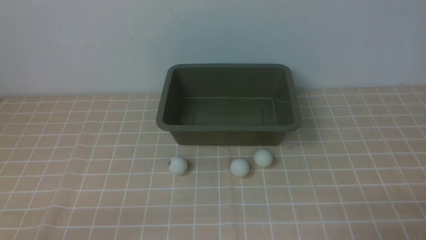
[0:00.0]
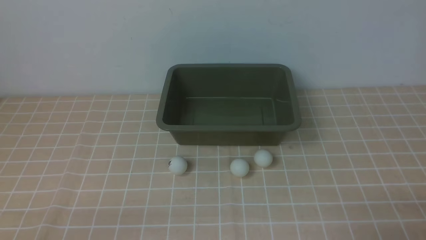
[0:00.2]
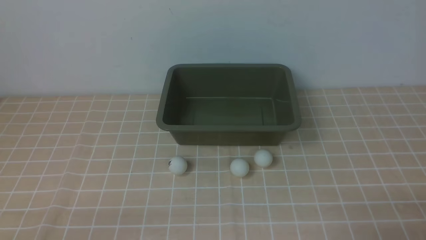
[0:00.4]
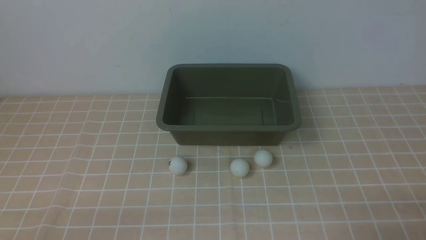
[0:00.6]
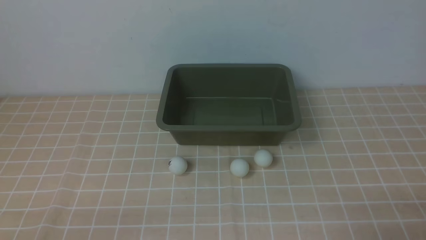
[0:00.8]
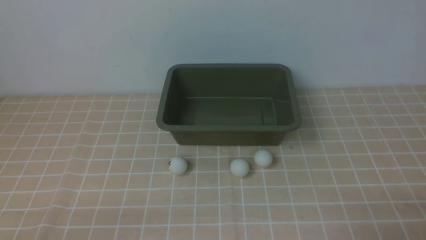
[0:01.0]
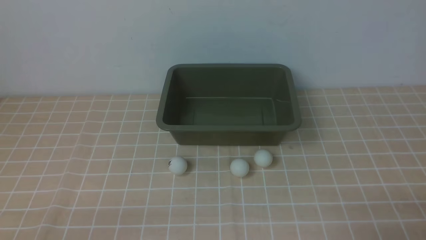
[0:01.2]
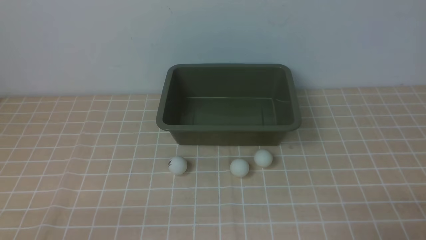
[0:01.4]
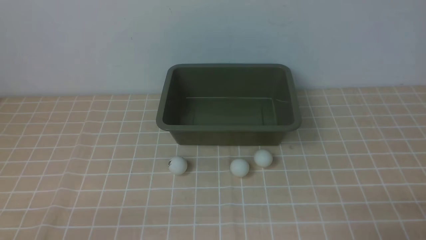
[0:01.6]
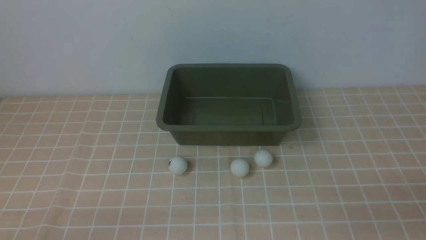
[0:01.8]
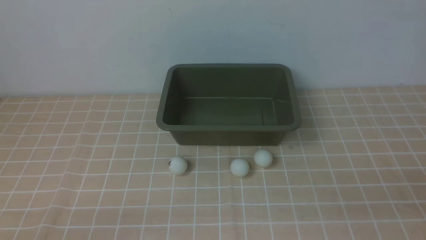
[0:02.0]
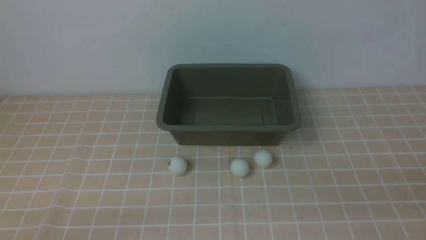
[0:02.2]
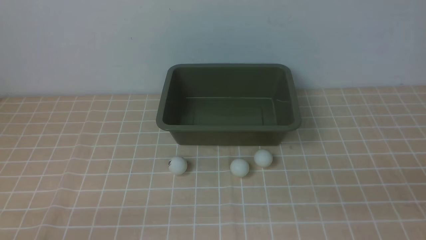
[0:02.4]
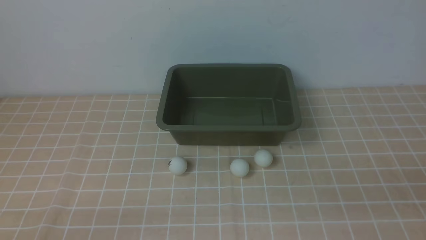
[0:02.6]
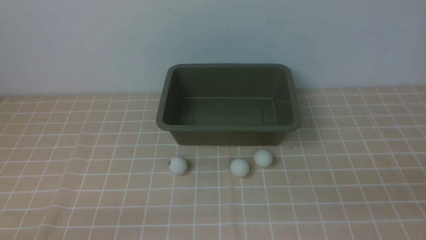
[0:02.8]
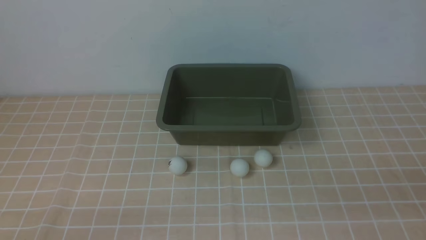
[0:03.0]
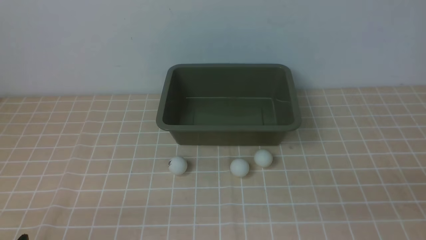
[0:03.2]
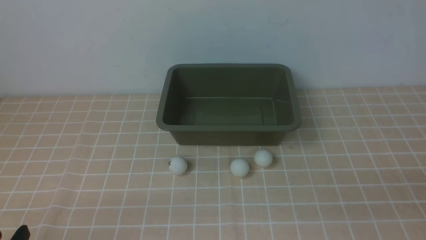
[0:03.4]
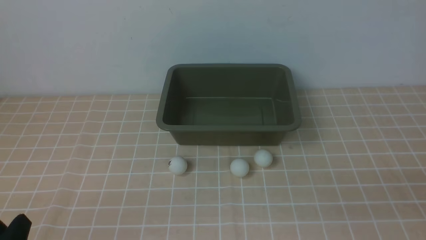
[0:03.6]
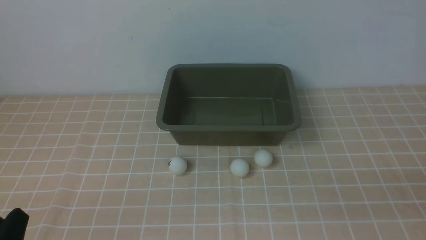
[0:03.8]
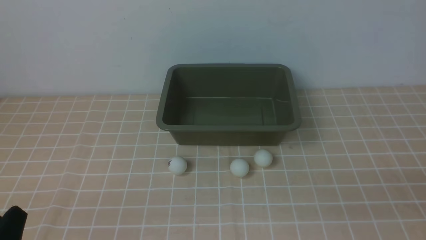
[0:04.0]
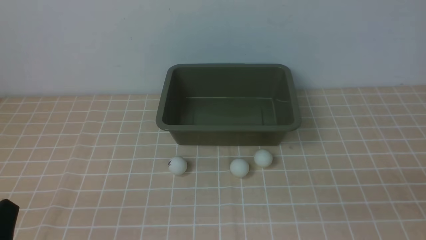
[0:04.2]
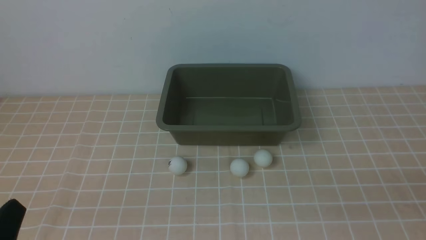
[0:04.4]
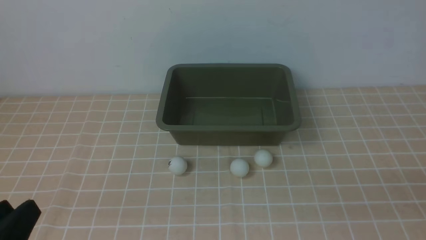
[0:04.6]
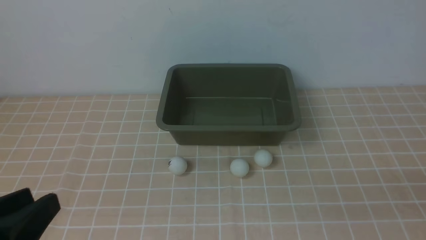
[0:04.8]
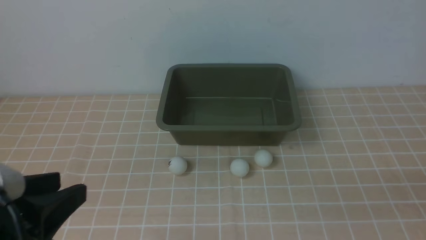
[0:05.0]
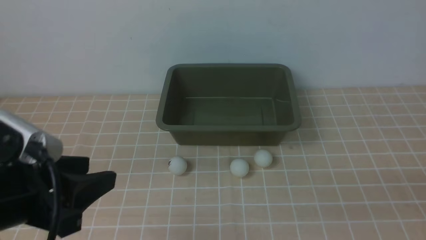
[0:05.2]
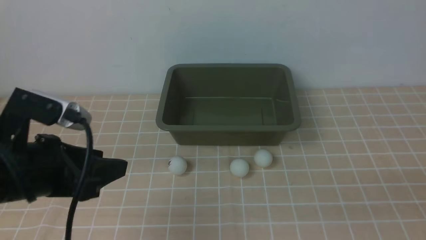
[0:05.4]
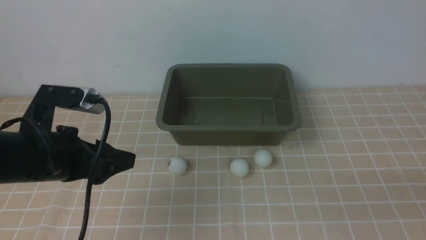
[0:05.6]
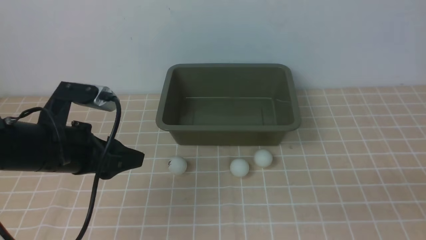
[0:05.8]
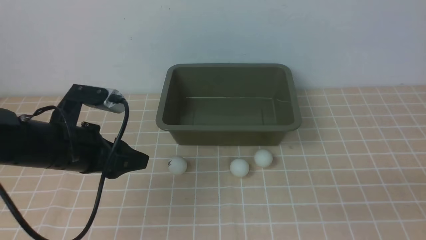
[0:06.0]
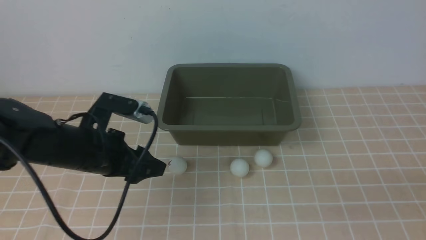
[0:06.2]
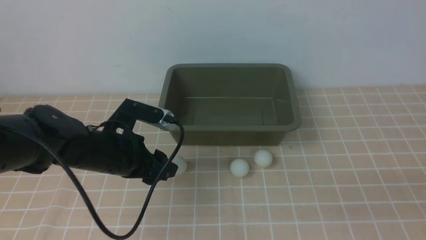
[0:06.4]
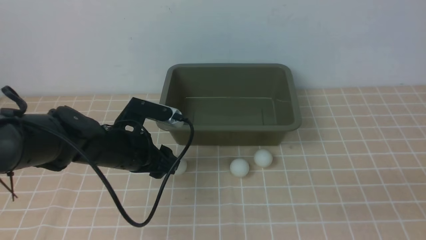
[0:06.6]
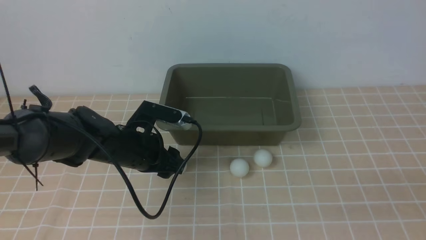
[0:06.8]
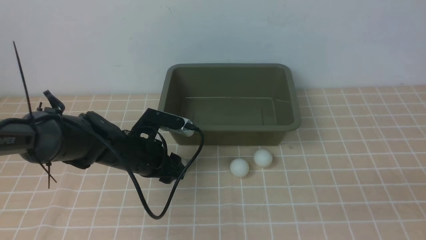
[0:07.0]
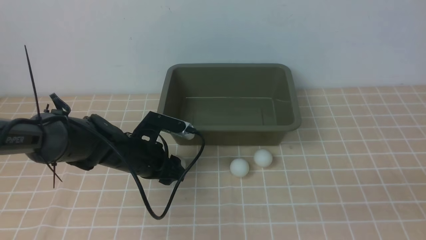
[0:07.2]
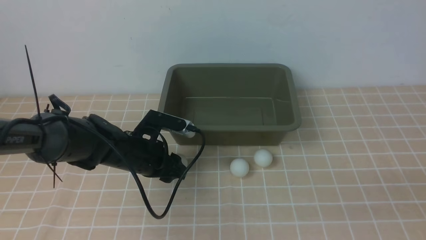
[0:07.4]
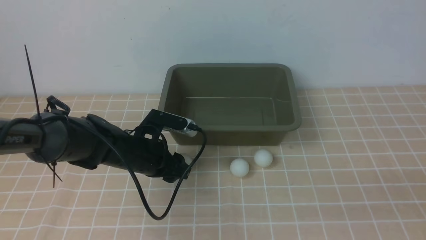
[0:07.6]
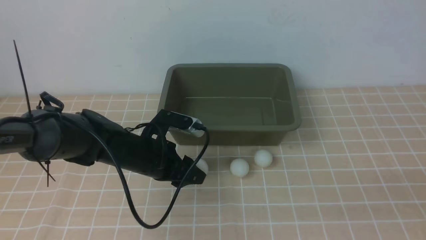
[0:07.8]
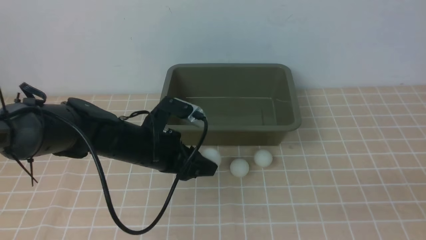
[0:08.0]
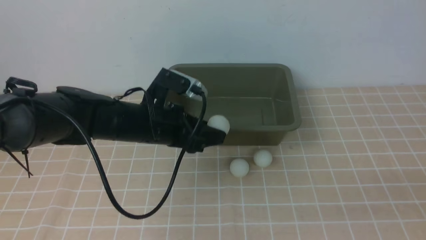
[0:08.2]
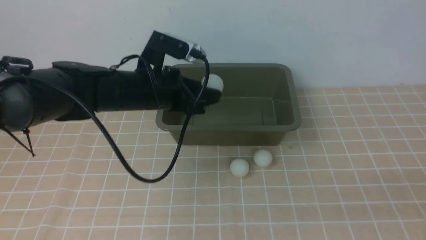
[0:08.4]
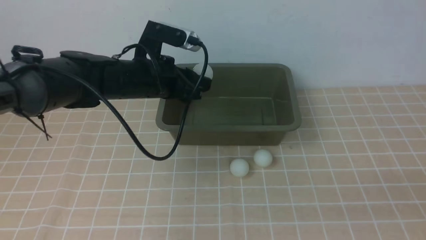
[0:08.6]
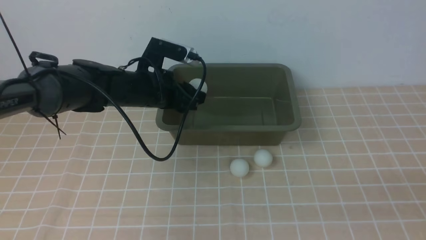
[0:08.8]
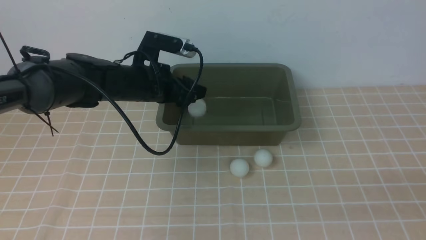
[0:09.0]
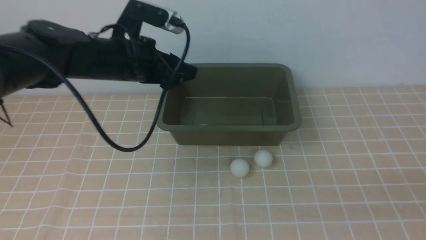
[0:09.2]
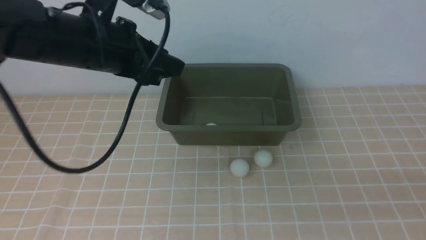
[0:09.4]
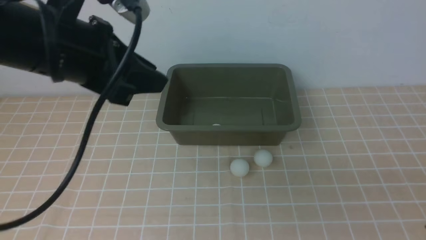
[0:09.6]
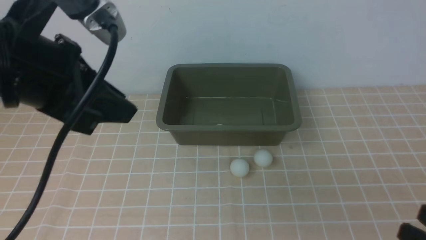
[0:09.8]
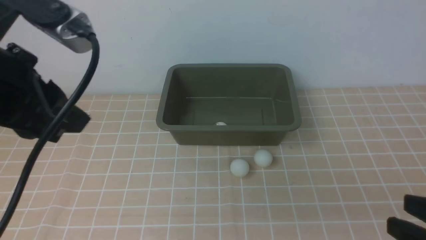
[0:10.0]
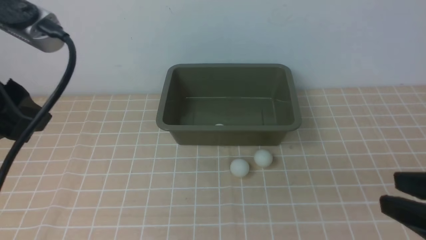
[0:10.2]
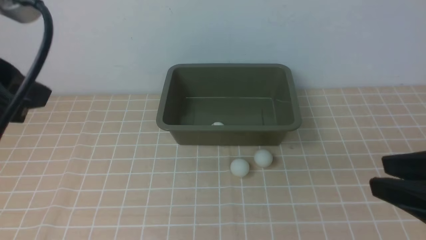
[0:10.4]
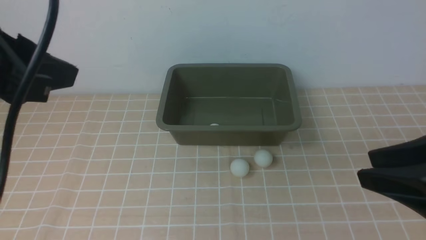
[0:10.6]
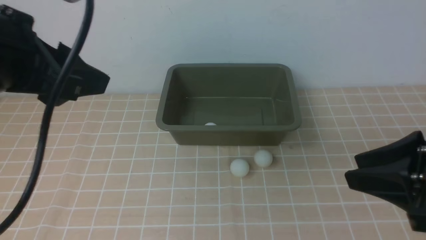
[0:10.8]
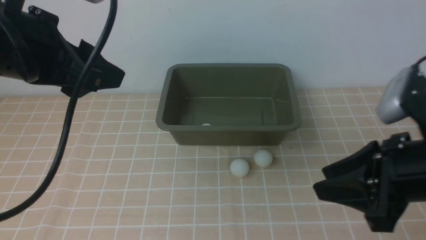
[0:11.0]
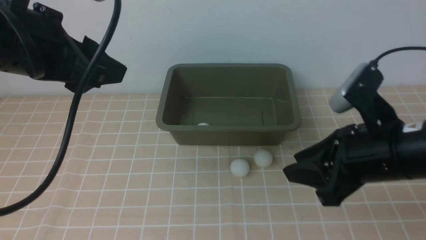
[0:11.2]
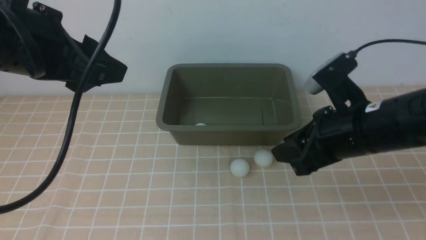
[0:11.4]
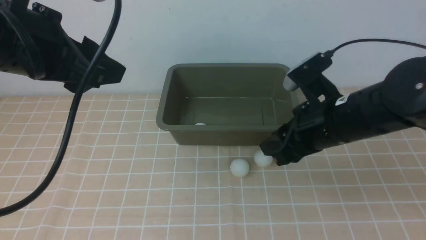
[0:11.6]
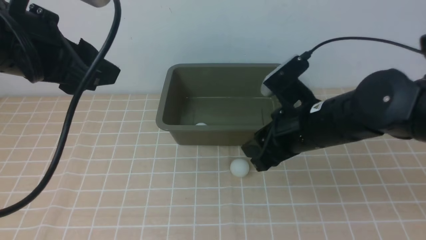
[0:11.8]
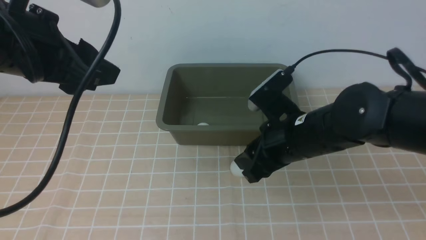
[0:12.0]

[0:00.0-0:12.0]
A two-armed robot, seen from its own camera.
Step, 0:00.0 to 0:07.6: use the left arm to clamp the table tennis ball closest to it.
Step, 0:07.8 to 0:09.2: use the left arm to put the table tennis ball into the box.
0:03.0 to 0:04.4: The left gripper heads upward, covering some 5 cm.
0:04.4 to 0:06.0: The left gripper shifts about 20 cm forward, and opens up.
0:06.0 to 0:07.6: The left gripper heads downward, to the right and forward, covering about 15 cm, and closes its fingers.
0:07.6 to 0:09.0: The left gripper moves upward and forward, approximately 15 cm, and opens.
0:09.0 to 0:10.4: The right gripper goes about 10 cm forward and upward; the left gripper shifts approximately 30 cm backward and upward, and closes.
0:10.4 to 0:12.0: The left gripper moves forward, roughly 5 cm, and opens up; the right gripper heads forward, to the left and downward, covering some 25 cm.

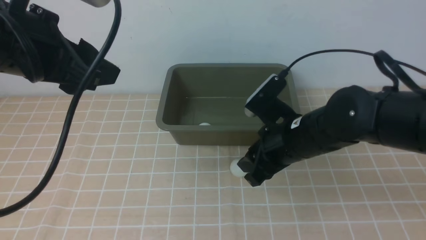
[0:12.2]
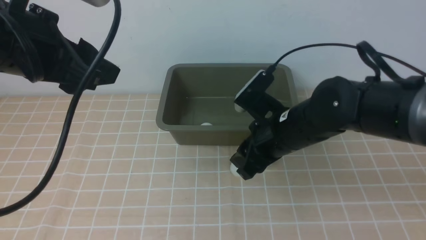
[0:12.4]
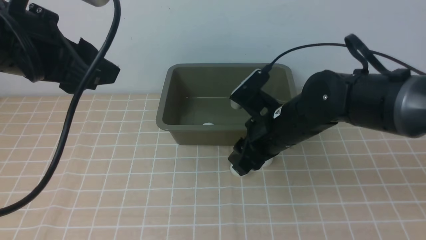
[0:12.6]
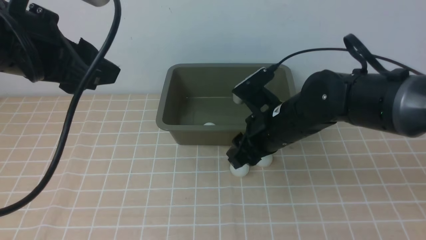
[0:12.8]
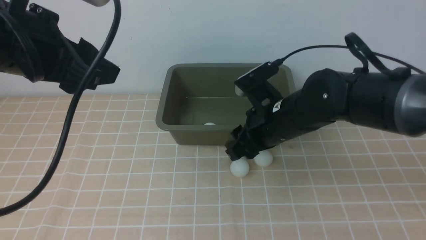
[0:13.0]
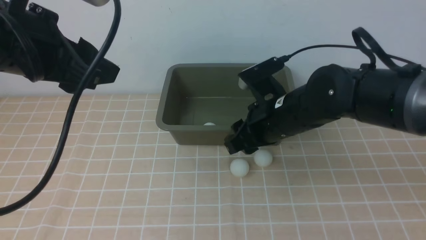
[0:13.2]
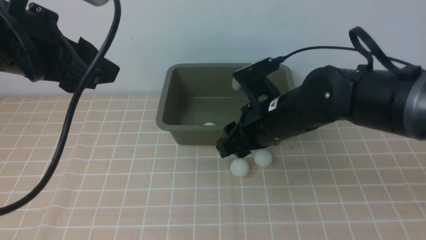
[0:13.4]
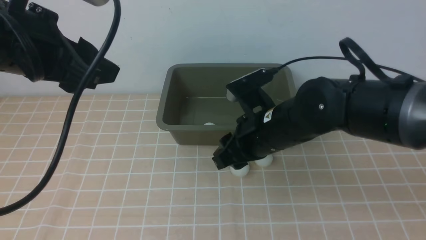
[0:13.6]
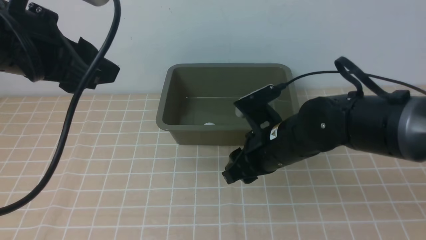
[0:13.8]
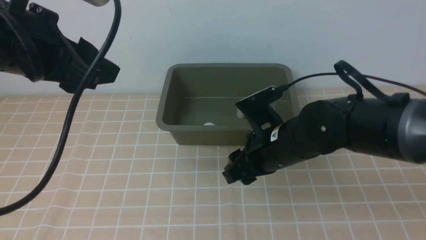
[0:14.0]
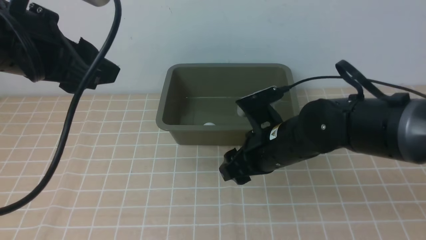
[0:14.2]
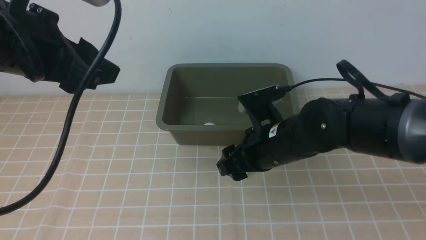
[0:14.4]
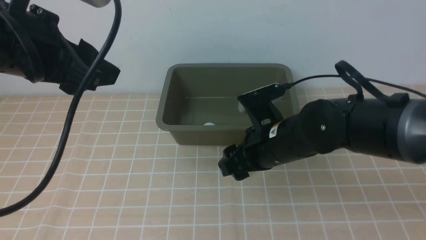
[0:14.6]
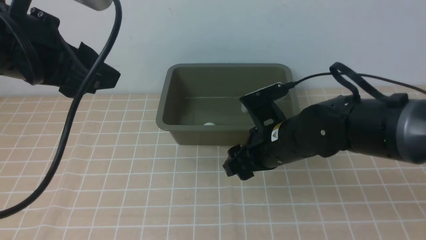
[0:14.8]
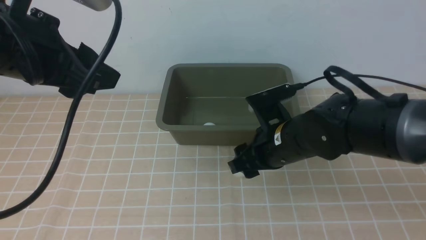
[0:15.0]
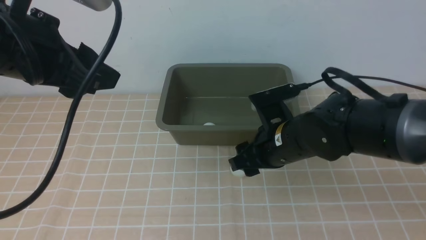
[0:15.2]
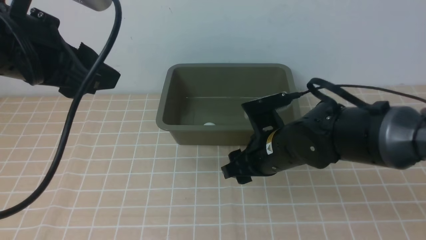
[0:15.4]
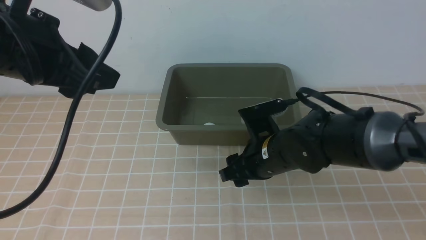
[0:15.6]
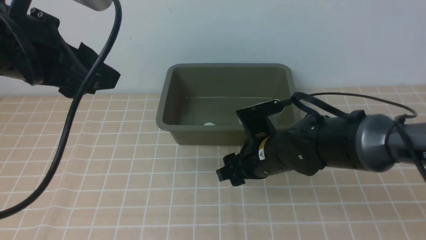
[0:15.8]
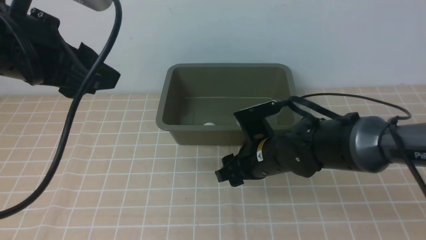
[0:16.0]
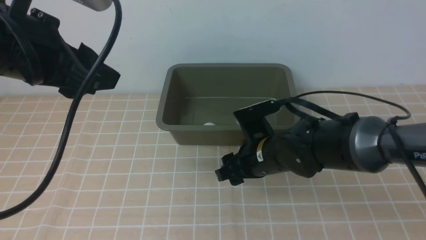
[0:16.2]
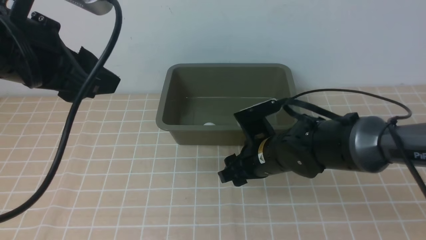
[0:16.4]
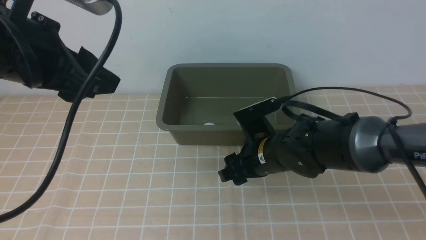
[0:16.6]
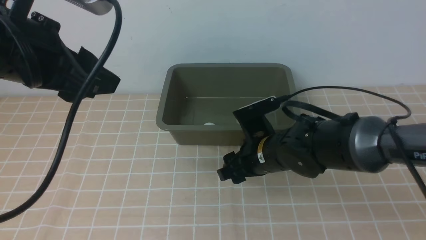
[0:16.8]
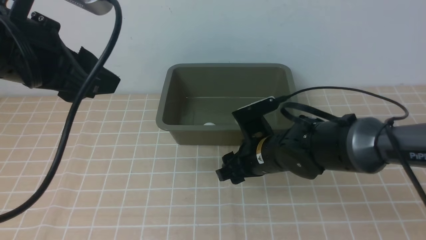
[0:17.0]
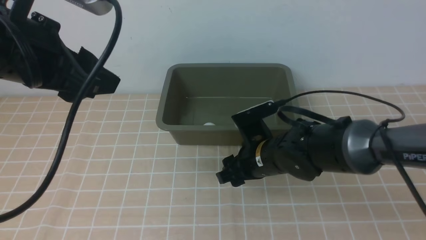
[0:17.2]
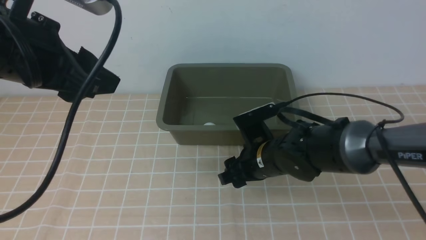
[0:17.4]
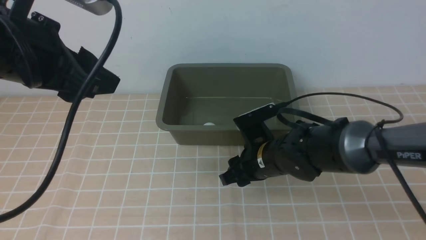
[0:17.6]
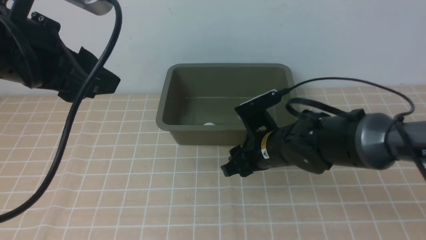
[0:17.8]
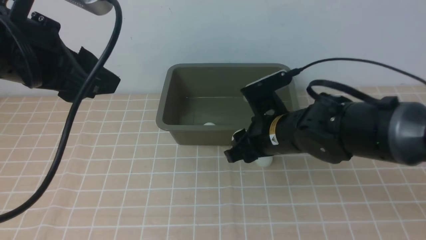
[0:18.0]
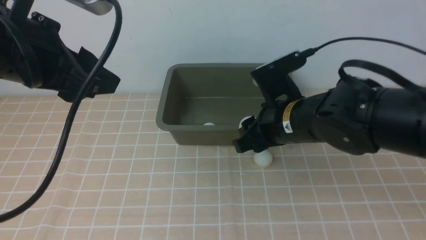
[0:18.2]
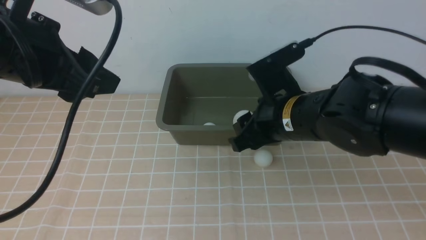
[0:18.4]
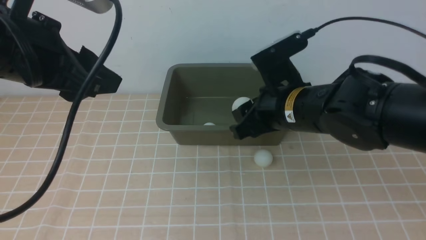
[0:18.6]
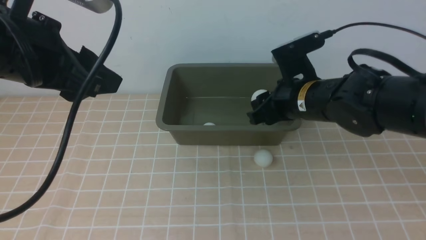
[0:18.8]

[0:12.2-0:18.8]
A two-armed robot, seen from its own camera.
Step, 0:12.2 to 0:18.0: use the right arm to clamp the table tennis ball closest to it.
0:12.2 to 0:13.8: The grippers make only small movements.
0:13.8 to 0:15.4: The right gripper opens up.
0:15.4 to 0:17.2: The grippers make only small movements.
0:17.2 to 0:18.8: The right gripper is displaced upward by about 10 cm, and closes.
